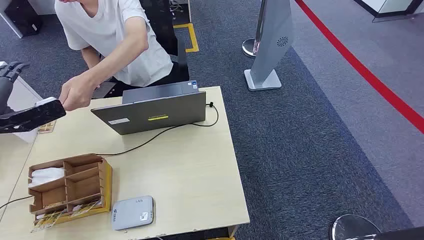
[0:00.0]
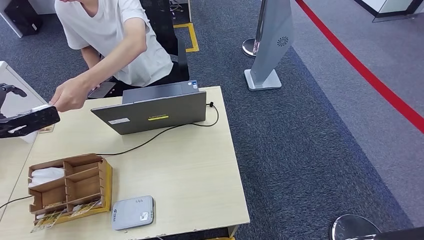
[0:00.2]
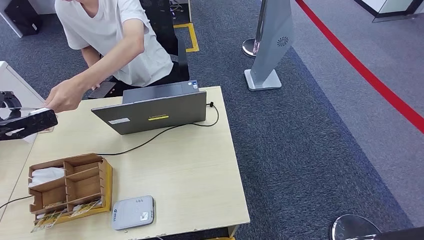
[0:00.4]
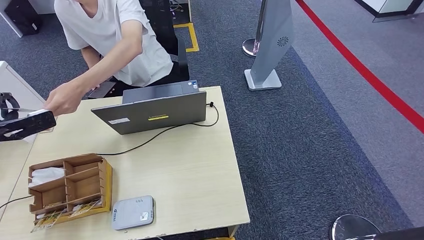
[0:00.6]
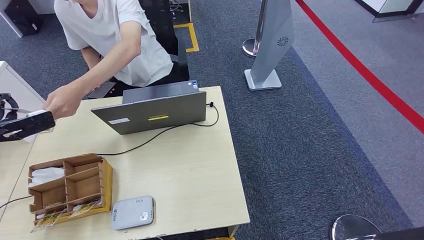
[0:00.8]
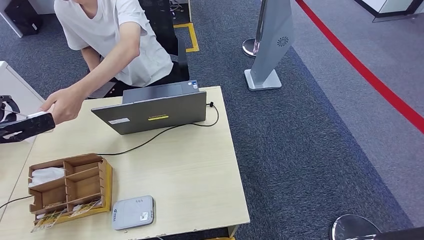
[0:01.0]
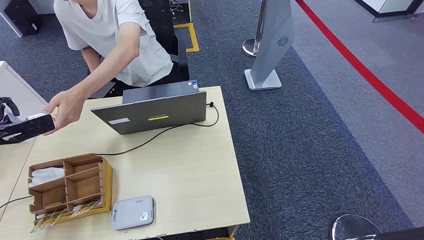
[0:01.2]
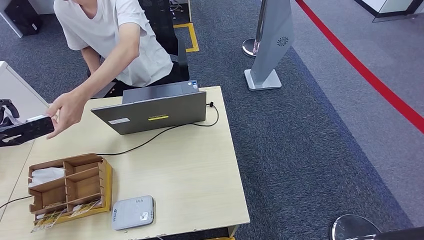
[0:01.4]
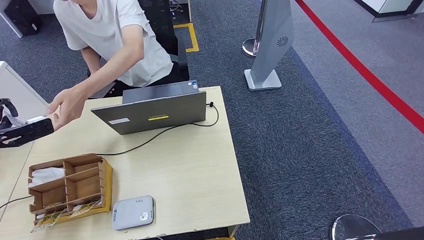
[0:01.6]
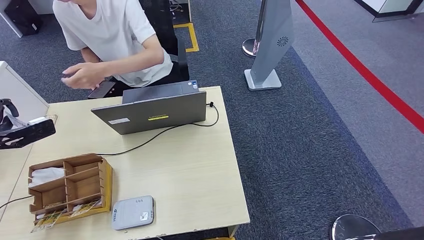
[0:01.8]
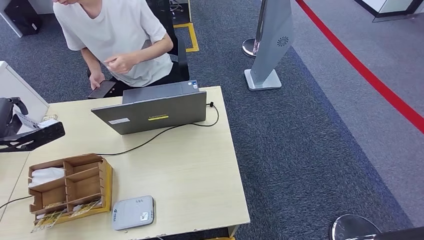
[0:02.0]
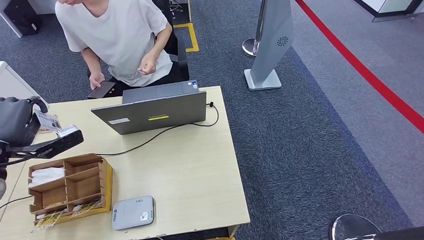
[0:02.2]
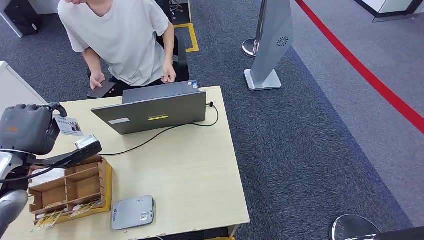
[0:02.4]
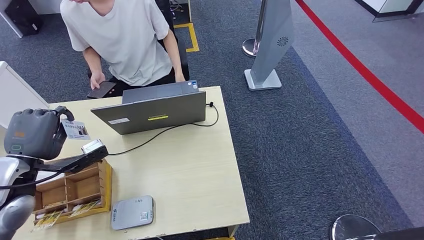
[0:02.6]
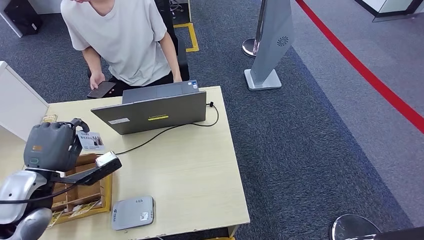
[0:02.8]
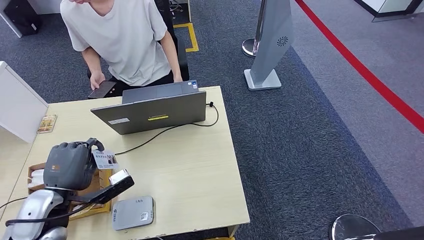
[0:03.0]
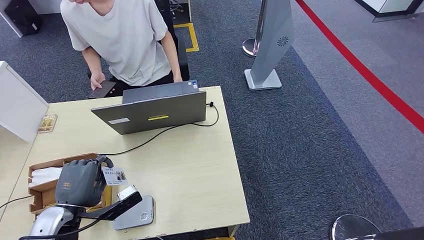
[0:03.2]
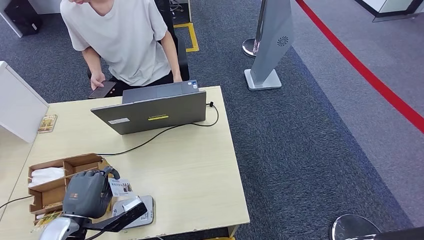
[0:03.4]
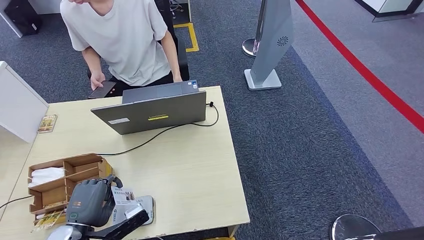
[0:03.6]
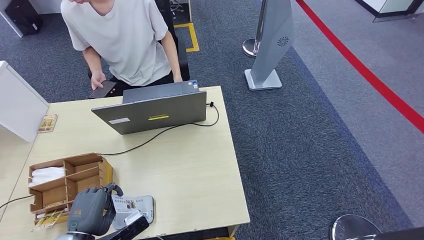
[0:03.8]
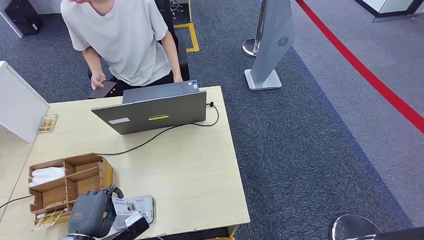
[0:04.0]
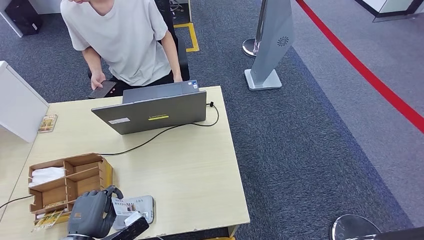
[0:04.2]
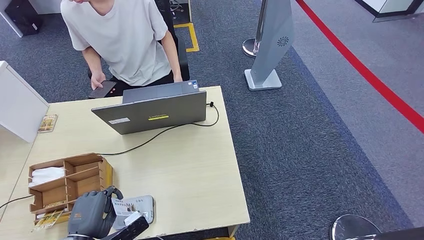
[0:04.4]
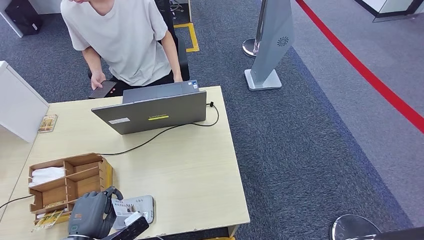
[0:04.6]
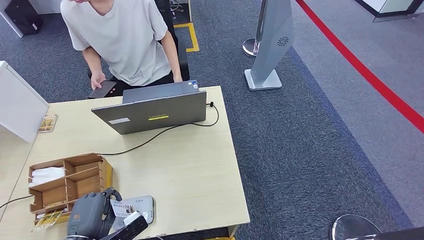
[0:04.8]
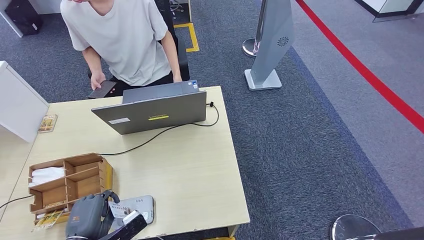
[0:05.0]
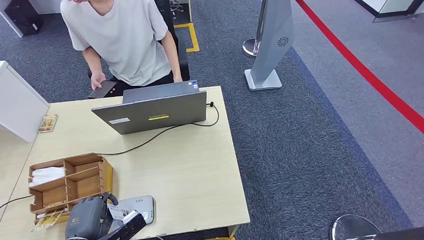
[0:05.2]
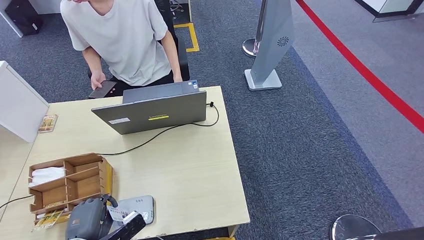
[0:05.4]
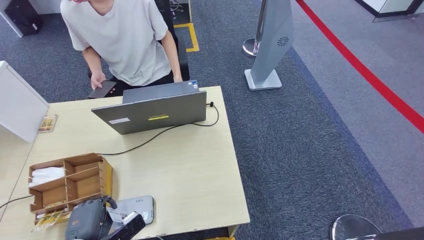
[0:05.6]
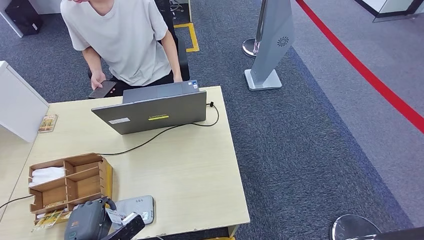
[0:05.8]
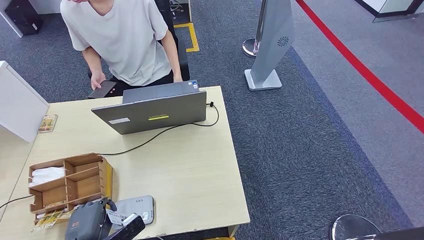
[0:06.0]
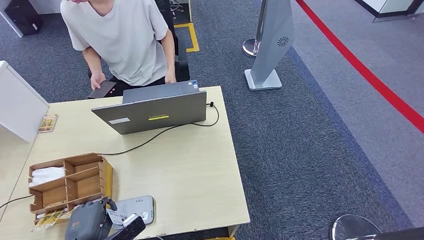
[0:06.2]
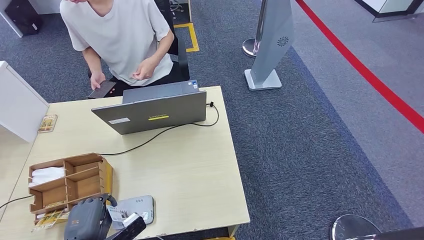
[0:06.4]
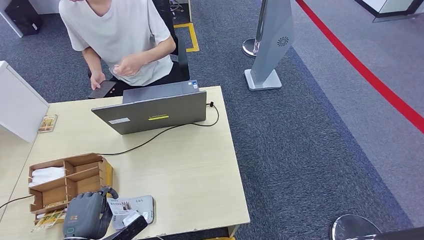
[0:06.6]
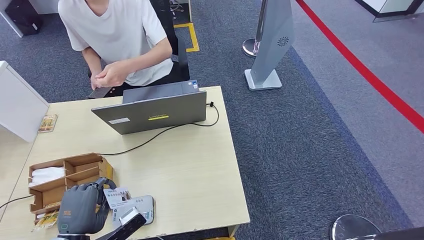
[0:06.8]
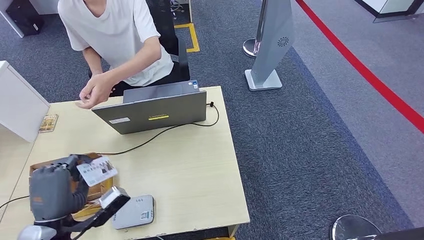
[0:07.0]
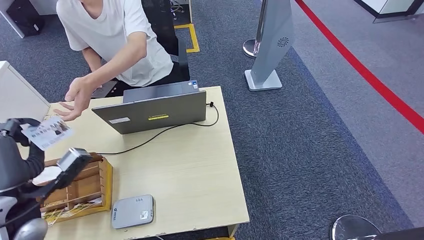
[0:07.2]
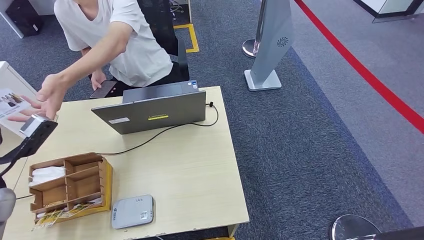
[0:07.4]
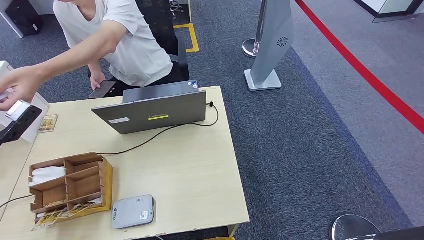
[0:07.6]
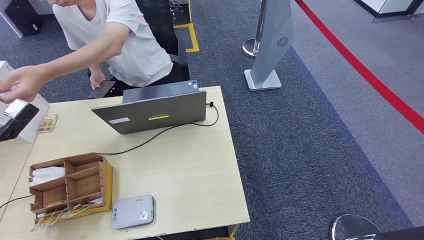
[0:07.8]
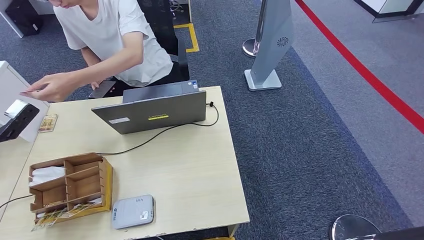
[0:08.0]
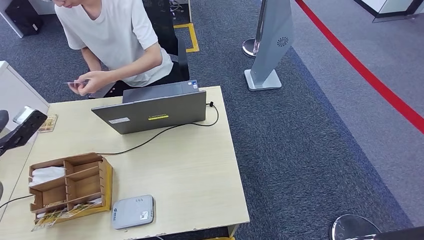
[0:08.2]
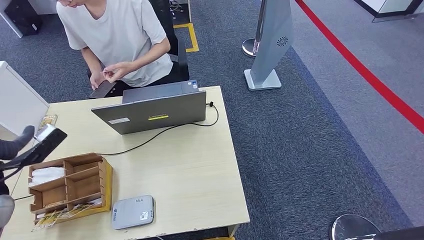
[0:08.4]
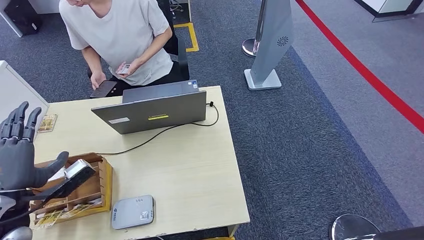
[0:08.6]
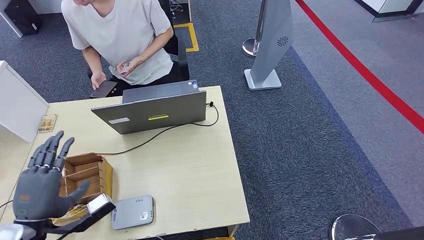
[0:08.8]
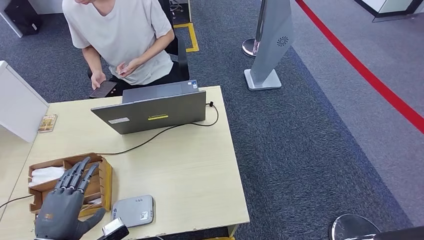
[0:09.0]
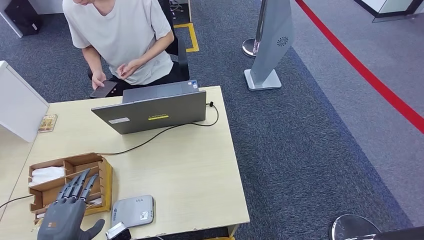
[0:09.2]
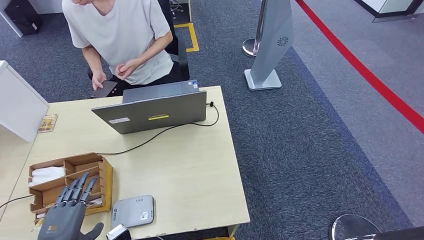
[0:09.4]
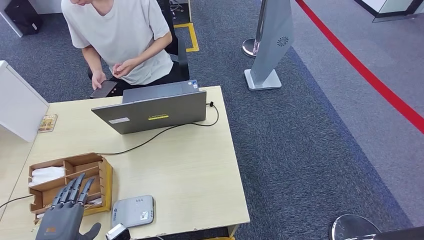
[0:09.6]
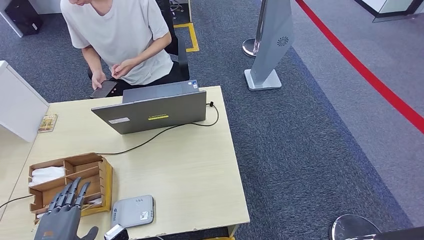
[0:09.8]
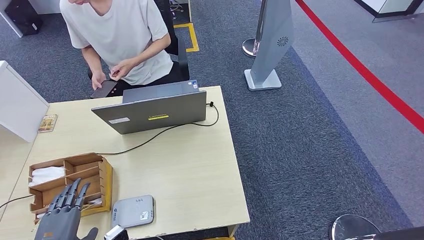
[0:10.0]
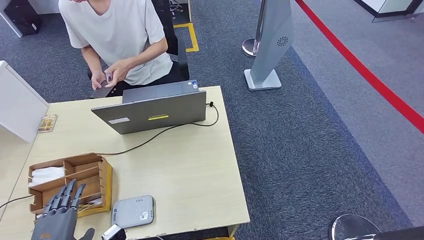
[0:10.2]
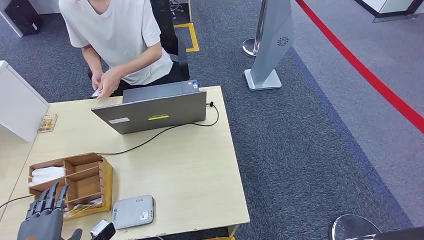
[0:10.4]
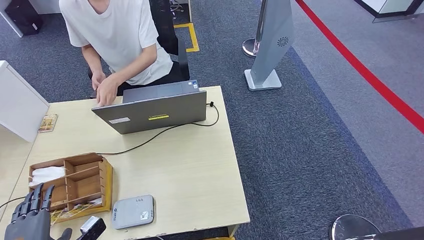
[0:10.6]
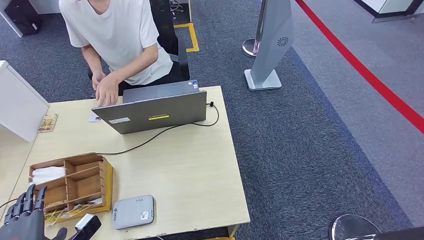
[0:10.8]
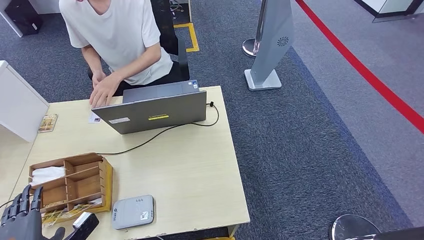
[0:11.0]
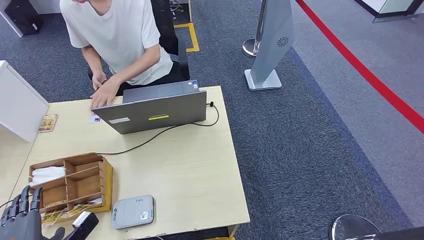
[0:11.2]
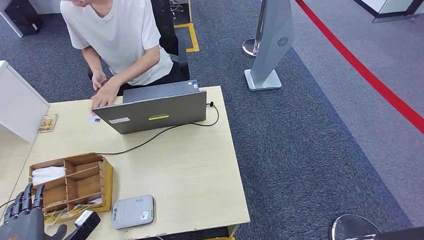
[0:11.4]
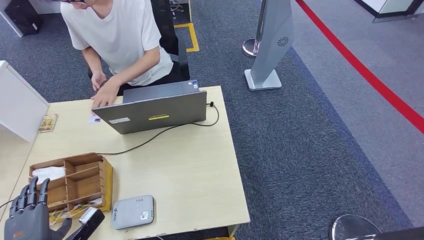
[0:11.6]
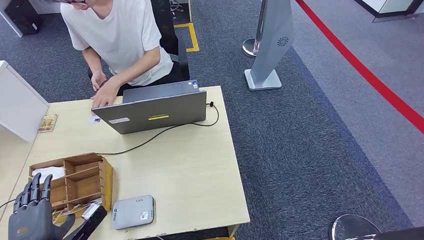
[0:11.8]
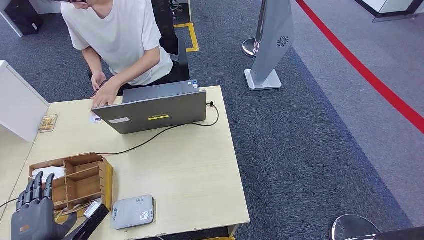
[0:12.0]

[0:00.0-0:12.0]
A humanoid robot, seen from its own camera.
Step, 0:00.0 to 0:01.8: Take the ID card from the person's hand.
Step, 0:02.0 to 0:06.4: Place the ID card on the card reader.
Step, 0:06.8 to 0:09.0: Hand the ID card to the person.
0:01.6 to 0:03.0: The left hand travels to the right, backward and downward by some 25 cm.
0:03.0 to 0:04.4: The left hand moves backward and downward, about 10 cm.
0:04.4 to 0:06.0: The hands move only a little.
0:06.0 to 0:07.6: The left hand is displaced forward, upward and to the left by approximately 30 cm.
0:07.6 to 0:09.0: The left hand shifts about 25 cm backward, downward and to the right.
0:10.4 to 0:12.0: The hands move only a little.

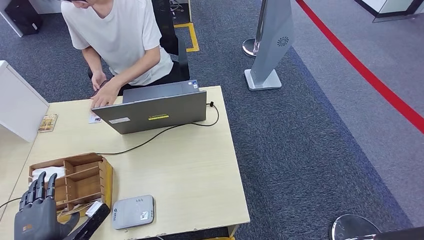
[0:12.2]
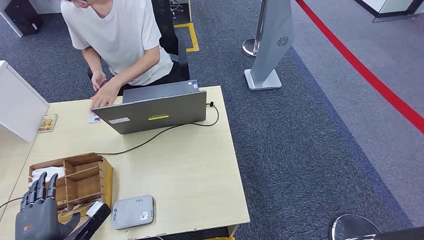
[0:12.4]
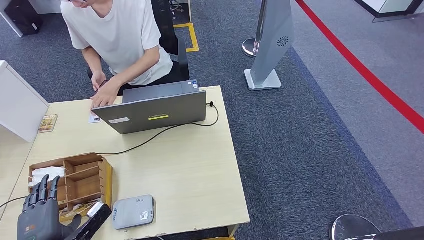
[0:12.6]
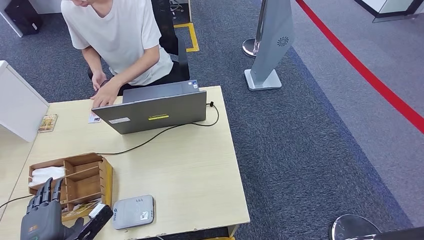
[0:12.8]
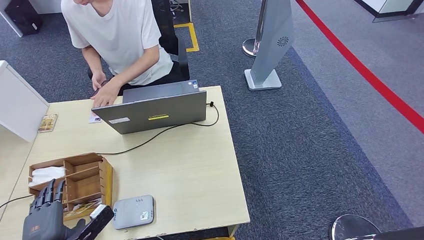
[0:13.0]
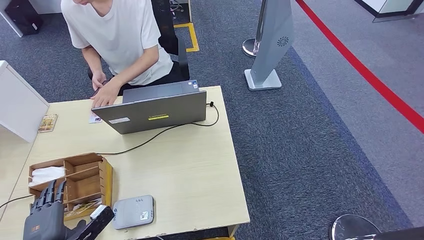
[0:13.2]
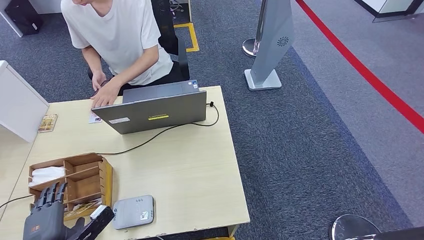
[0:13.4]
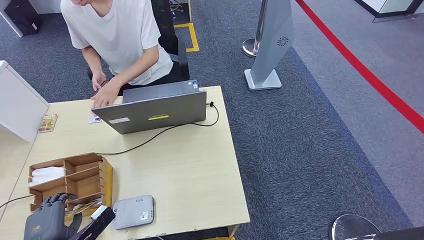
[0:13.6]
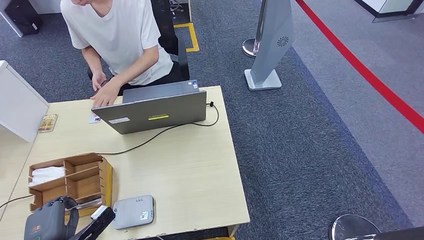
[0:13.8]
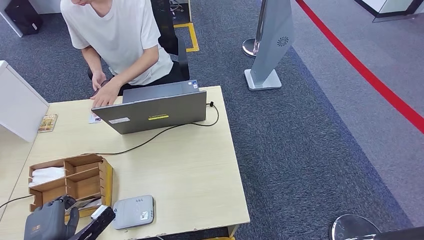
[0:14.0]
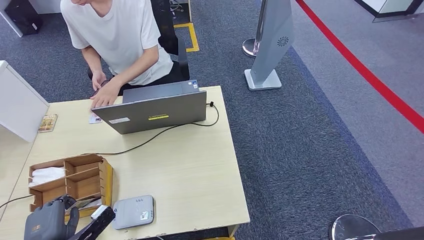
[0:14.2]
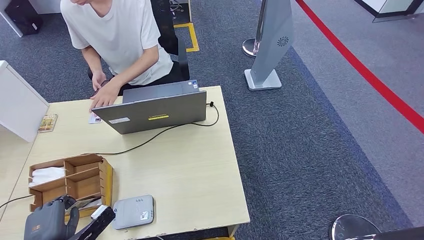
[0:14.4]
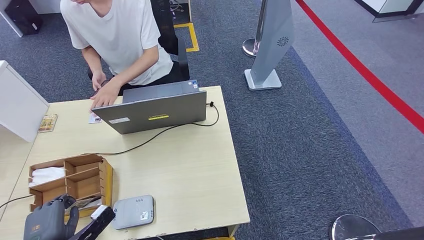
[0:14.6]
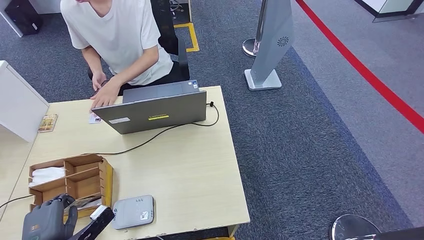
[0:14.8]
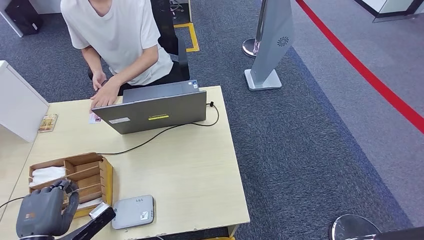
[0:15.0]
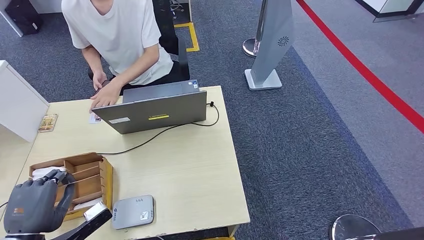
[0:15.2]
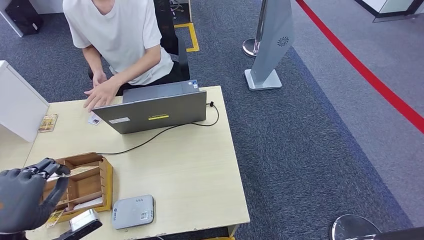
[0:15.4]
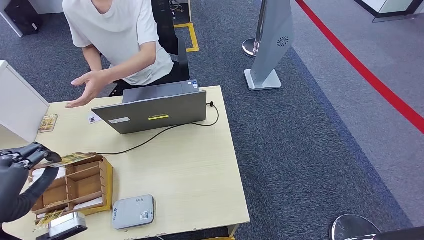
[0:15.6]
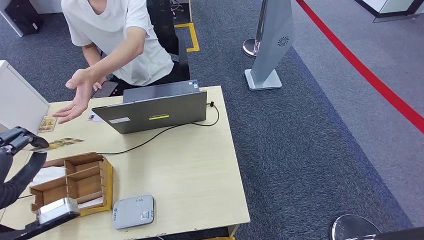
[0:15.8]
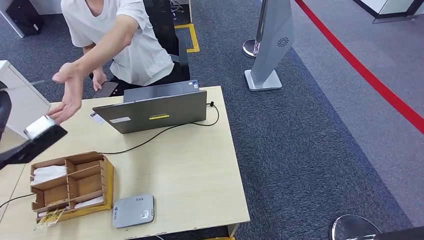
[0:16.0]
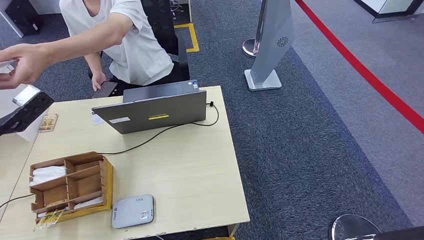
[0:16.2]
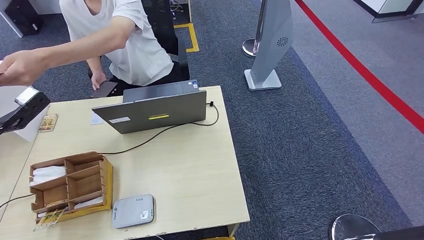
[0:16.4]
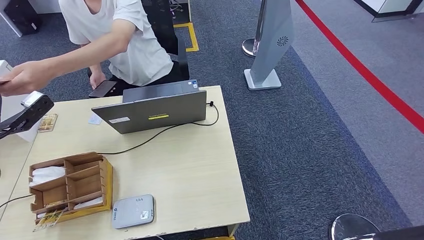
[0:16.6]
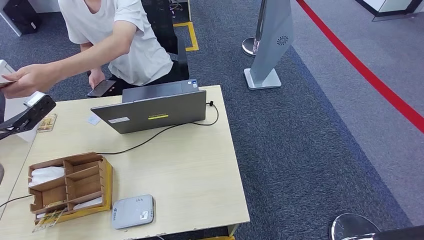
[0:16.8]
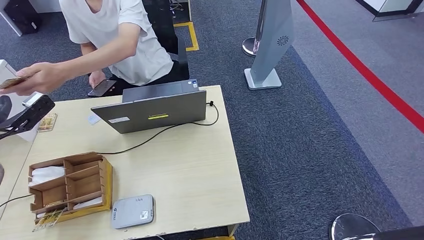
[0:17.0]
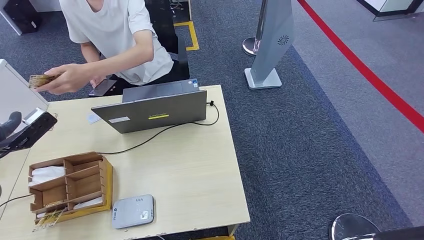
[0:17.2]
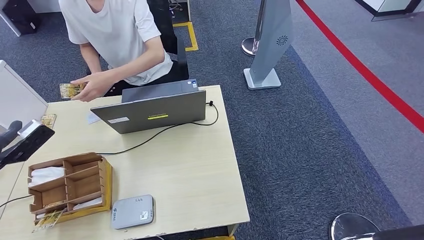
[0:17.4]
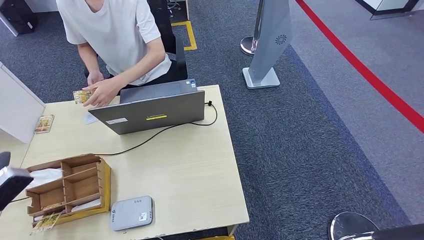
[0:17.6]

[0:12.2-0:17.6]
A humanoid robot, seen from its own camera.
Step, 0:13.2 to 0:15.6: Pick up the room key from the key card box.
Step, 0:15.8 to 0:17.6: Hand the room key to the person.
0:12.2 to 0:15.0: There are only small adjustments of the hands.
0:15.0 to 0:16.2: The left hand is displaced upward and forward by some 25 cm.
0:16.2 to 0:17.6: The left hand travels backward, downward and to the left by some 15 cm.
